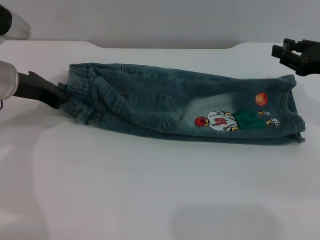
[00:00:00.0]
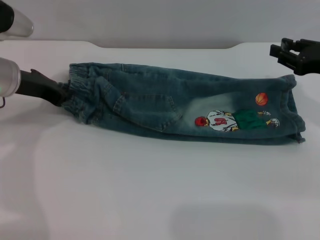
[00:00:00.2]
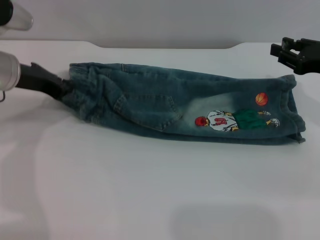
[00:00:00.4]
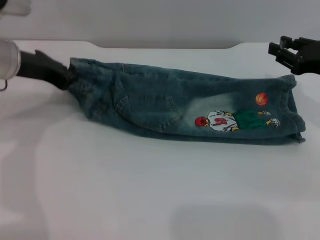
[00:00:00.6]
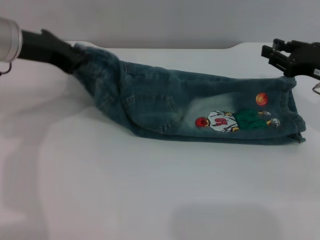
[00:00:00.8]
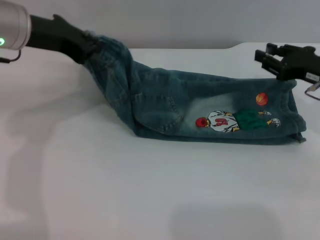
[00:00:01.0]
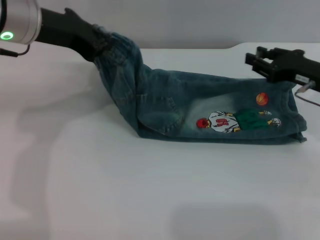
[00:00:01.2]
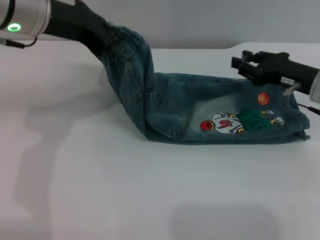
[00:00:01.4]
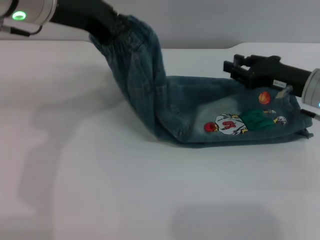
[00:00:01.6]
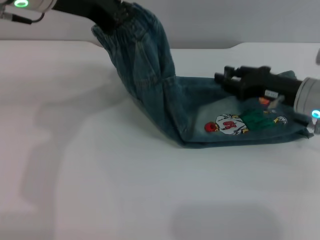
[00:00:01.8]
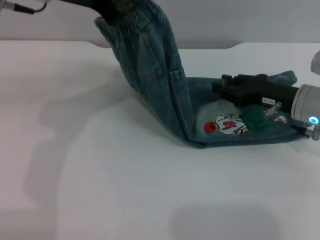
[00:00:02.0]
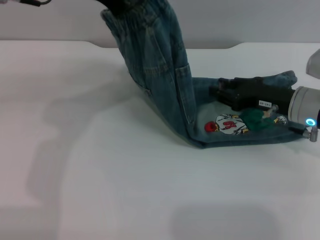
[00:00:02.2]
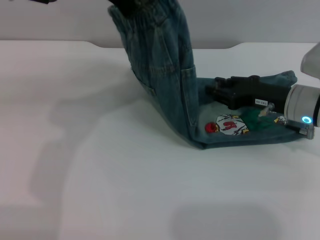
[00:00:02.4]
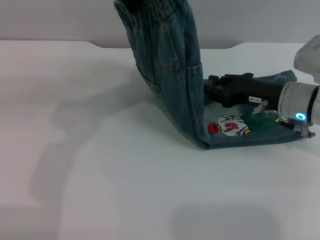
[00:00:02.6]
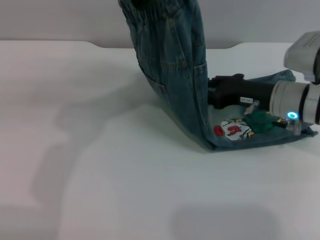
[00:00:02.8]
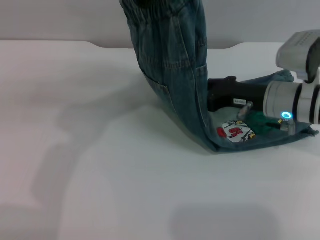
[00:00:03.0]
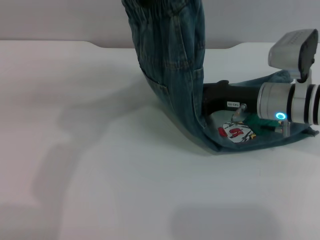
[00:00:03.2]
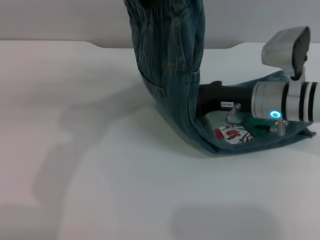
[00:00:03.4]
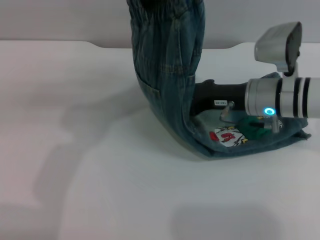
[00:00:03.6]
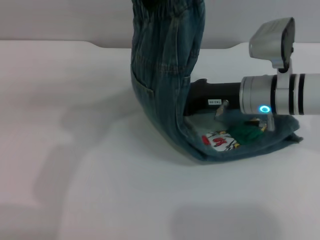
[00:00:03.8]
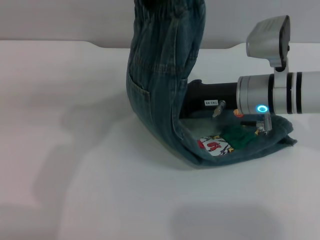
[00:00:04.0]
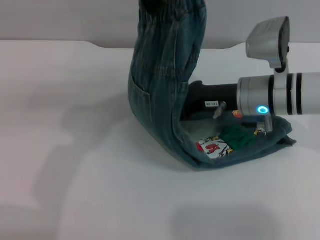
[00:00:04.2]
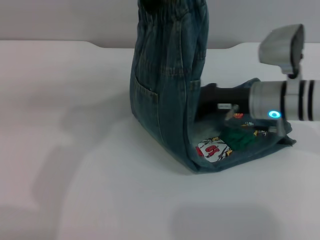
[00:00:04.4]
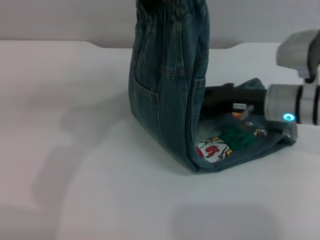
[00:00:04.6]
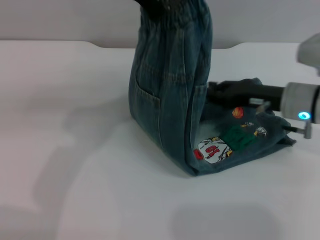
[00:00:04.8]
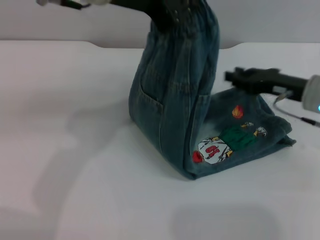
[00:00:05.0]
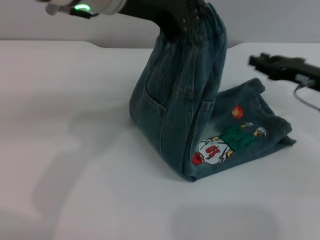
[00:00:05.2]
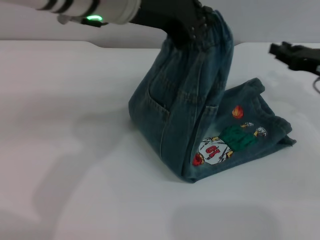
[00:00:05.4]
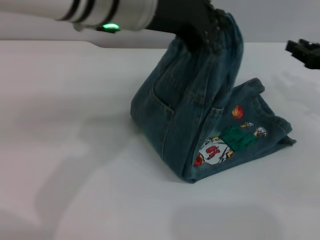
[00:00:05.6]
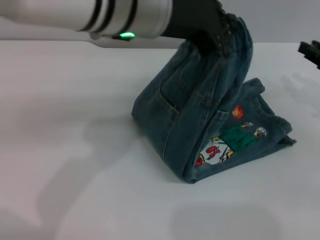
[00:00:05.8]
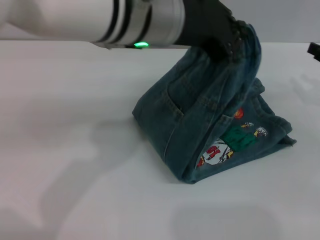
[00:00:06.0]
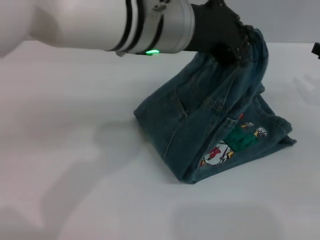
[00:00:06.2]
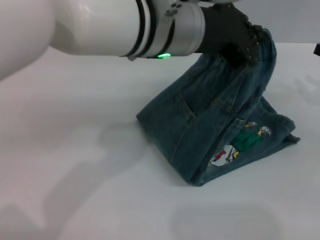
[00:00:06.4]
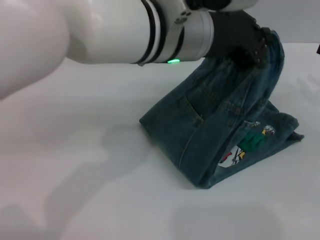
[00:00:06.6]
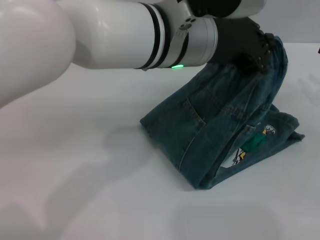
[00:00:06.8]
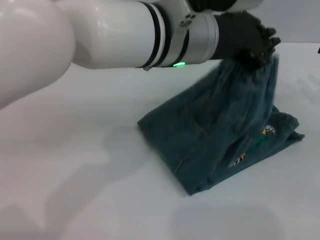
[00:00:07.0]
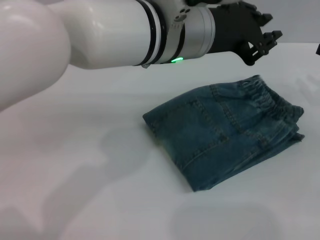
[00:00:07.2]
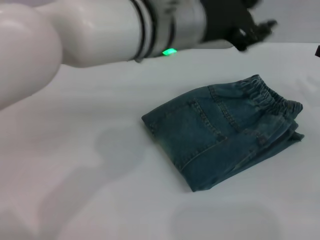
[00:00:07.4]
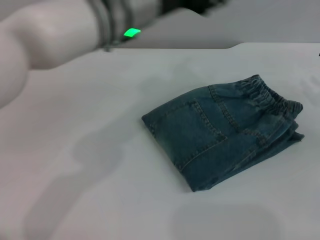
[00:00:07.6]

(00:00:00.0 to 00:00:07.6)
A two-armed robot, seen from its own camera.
Step, 00:00:00.0 - 00:00:07.0: Fold the pants from left to right with the left gripper.
00:00:00.0 - 00:00:01.6: The right gripper heads to the left, covering roughly 5 cm; the left gripper heads upward and to the right, covering roughly 15 cm.
00:00:01.6 - 00:00:03.0: The left gripper shifts some 10 cm upward and to the right. The right gripper heads to the left, covering approximately 5 cm.
00:00:03.0 - 00:00:04.6: The grippers move only a little.
00:00:04.6 - 00:00:06.0: The right gripper moves to the right, approximately 15 cm. The left gripper goes approximately 10 cm to the right and downward.
00:00:06.0 - 00:00:07.6: The left gripper opens up.
